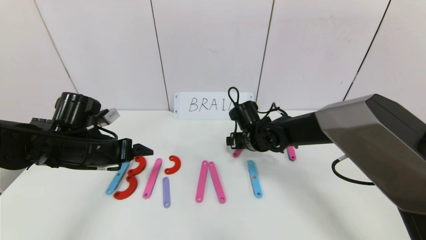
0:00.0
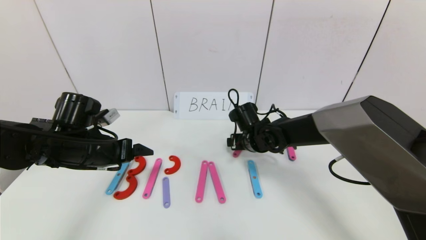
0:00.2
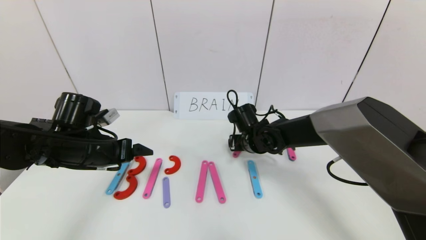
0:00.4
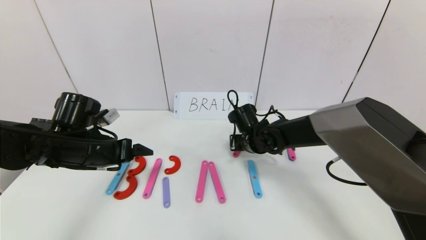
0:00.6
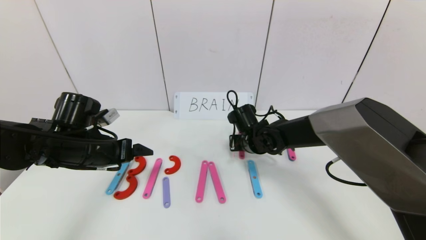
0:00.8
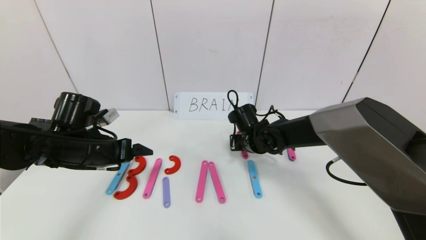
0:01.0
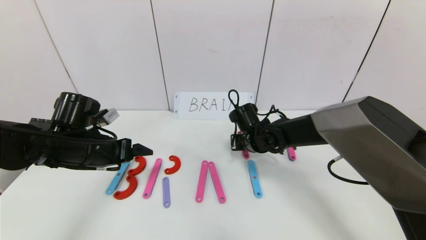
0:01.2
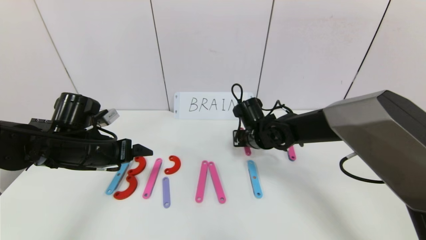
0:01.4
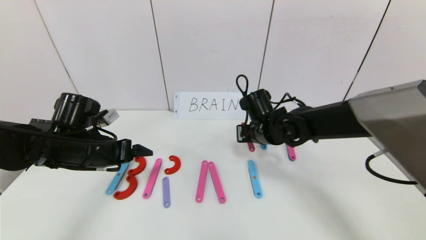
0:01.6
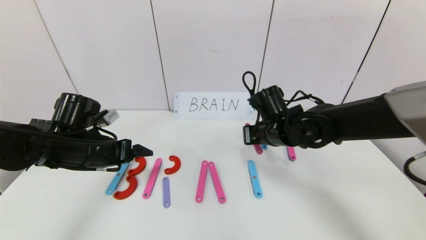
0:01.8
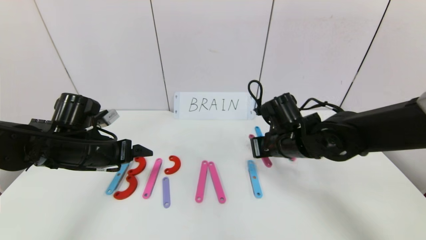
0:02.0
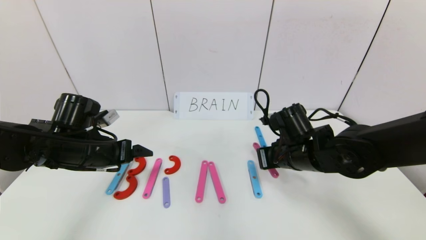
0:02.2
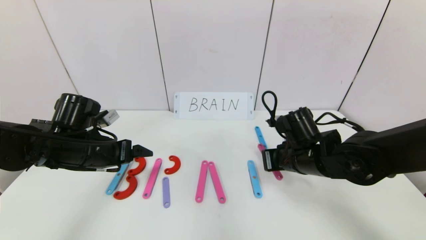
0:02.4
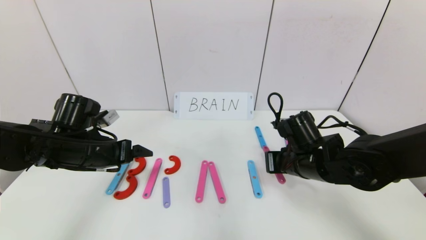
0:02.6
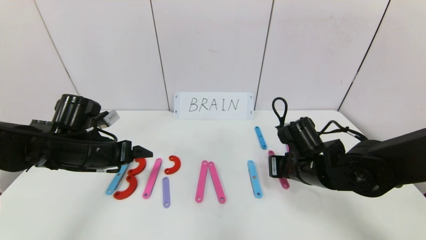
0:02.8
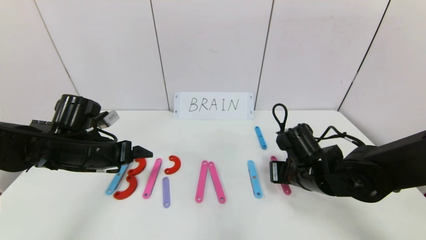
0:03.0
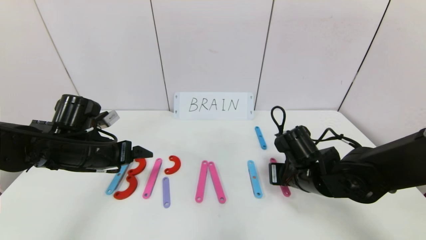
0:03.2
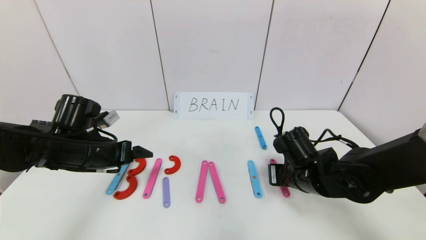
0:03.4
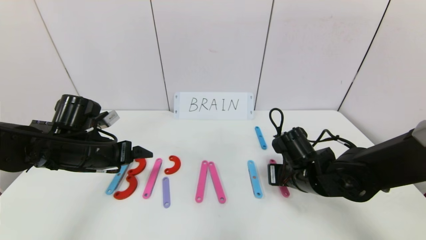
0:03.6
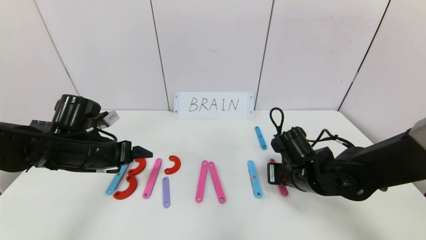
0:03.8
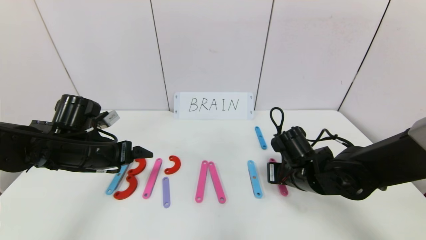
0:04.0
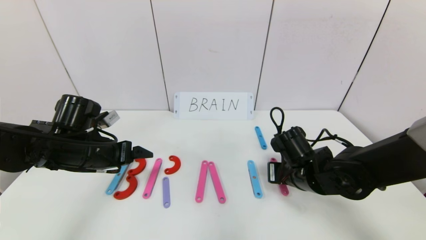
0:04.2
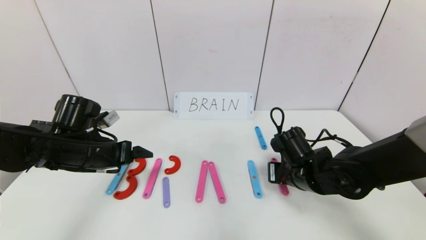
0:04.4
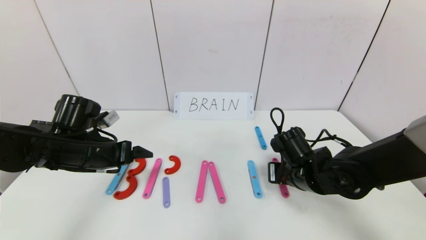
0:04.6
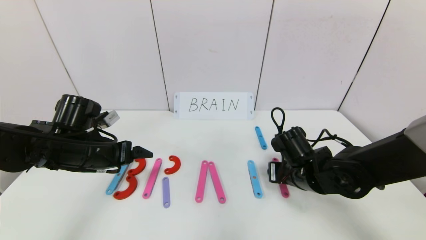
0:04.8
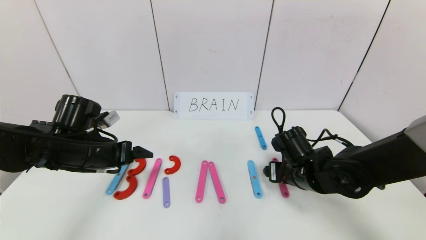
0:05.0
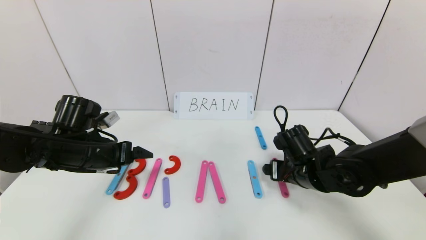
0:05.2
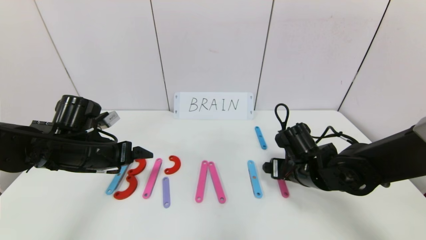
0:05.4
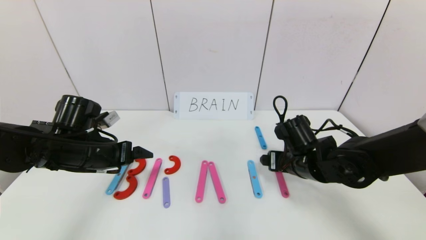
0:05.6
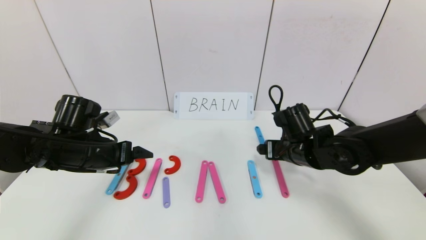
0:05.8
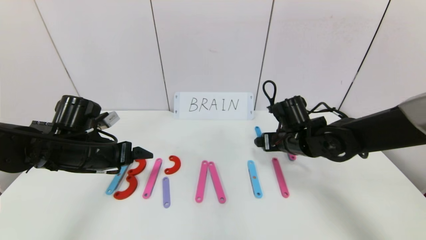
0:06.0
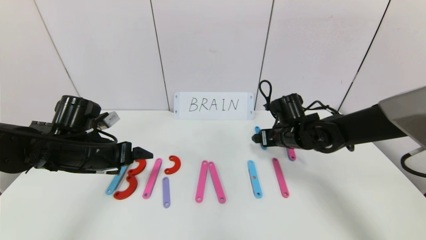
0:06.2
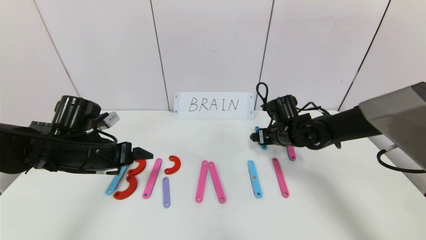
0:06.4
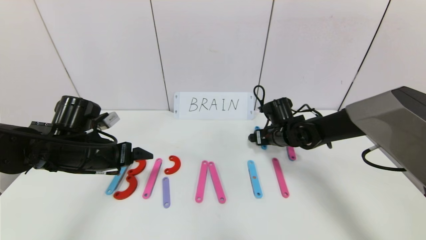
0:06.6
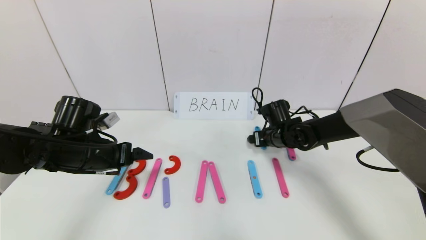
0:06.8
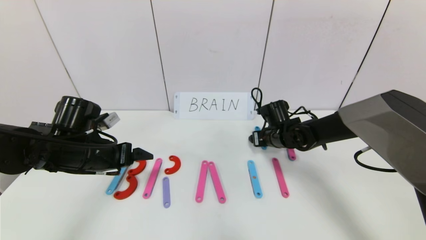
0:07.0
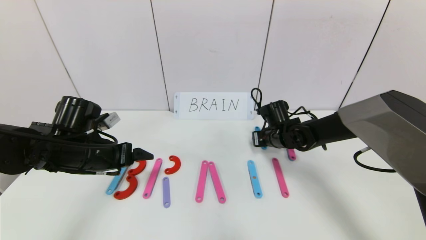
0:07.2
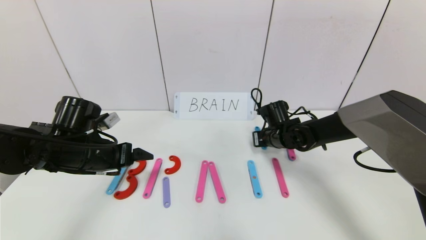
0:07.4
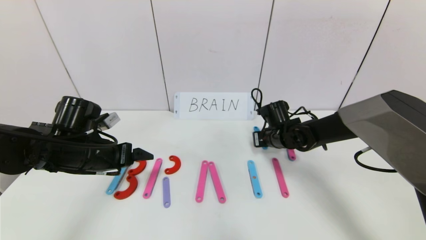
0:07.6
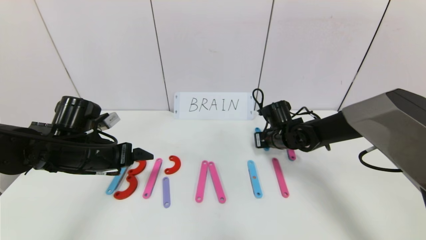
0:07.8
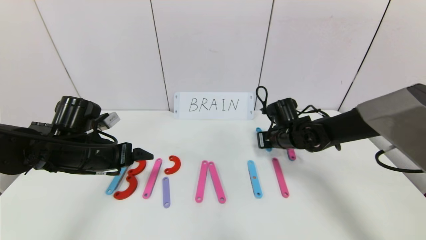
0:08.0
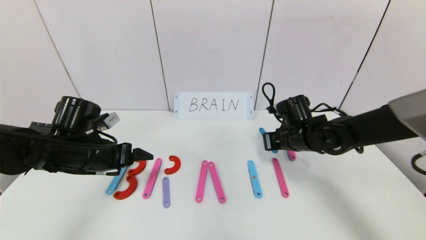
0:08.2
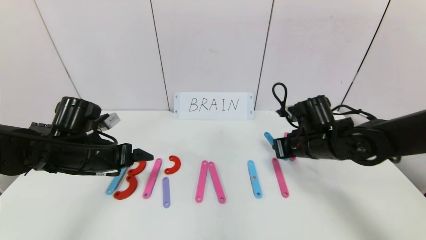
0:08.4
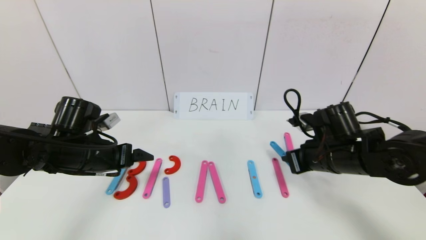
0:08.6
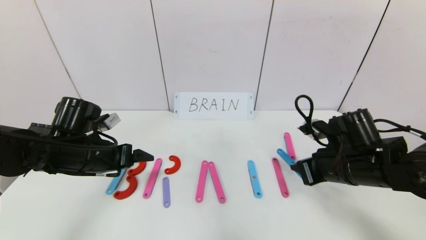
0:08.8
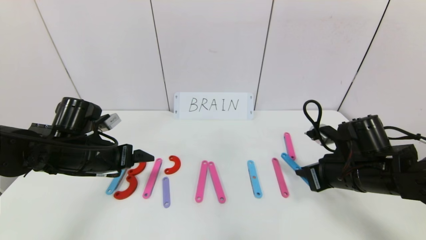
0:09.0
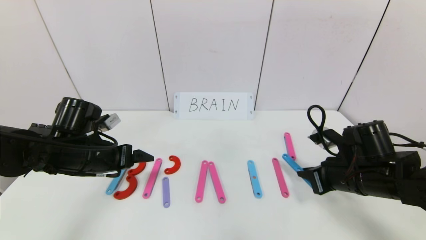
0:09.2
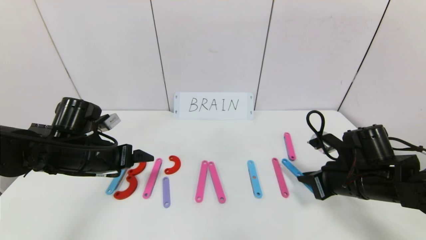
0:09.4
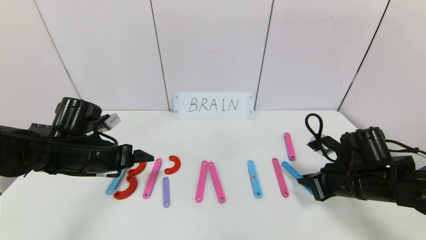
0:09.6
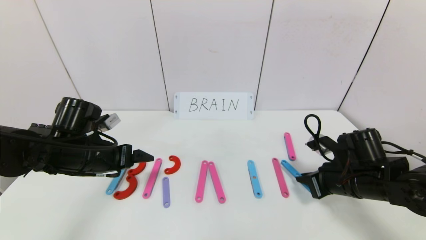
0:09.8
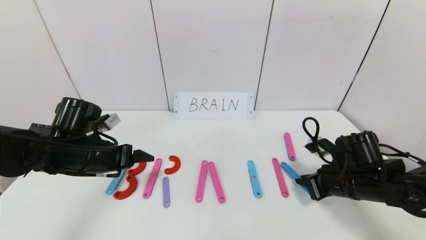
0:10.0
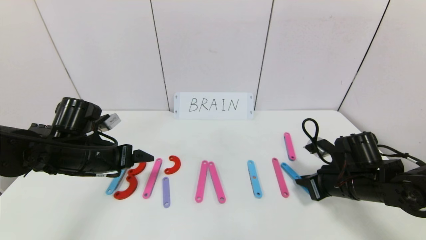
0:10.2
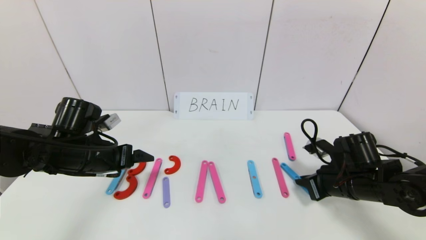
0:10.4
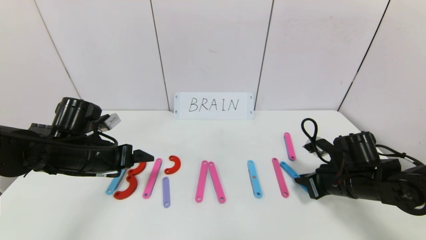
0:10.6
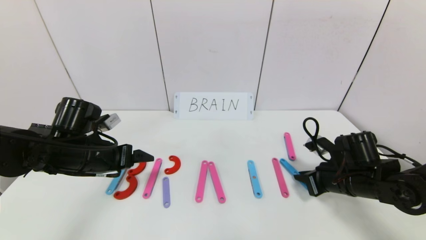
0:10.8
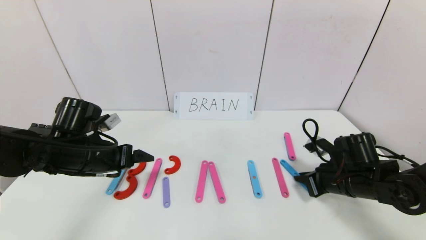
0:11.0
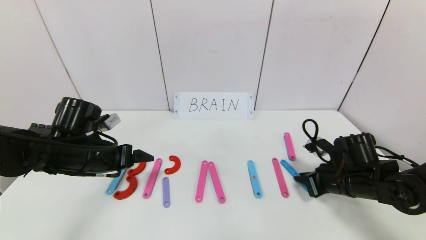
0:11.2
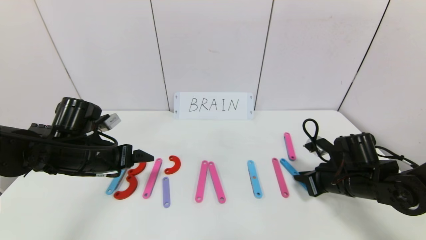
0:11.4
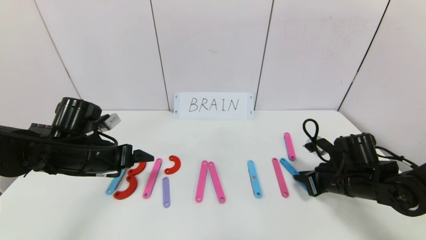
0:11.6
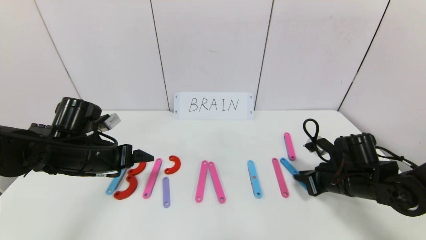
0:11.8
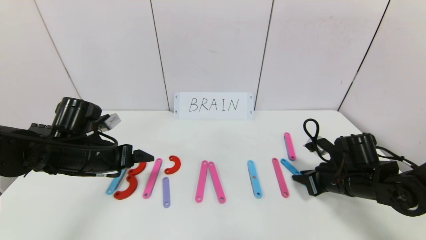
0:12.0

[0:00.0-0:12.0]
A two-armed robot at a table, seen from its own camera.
Task of the whole recording: rearrange the word baai as brain.
0:00.0 to 0:01.6: The right gripper closes up.
0:01.6 to 0:03.0: The right gripper travels backward and to the right by approximately 10 cm.
0:03.0 to 0:04.4: The grippers stay close to where they were, moving slightly.
0:04.4 to 0:06.0: The right gripper goes about 5 cm forward, and opens.
0:06.0 to 0:07.6: The right gripper goes roughly 10 cm forward and downward, and closes.
0:07.6 to 0:09.0: The right gripper moves backward and to the right, about 20 cm.
0:09.0 to 0:10.4: The right gripper shifts by roughly 5 cm.
0:10.4 to 0:12.0: The grippers move only a little.

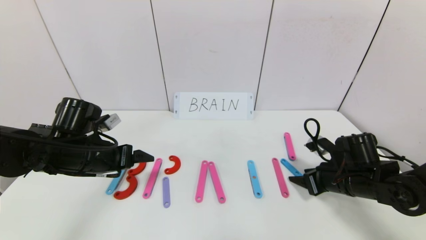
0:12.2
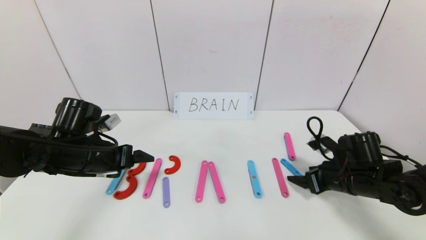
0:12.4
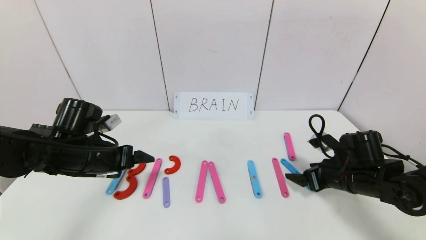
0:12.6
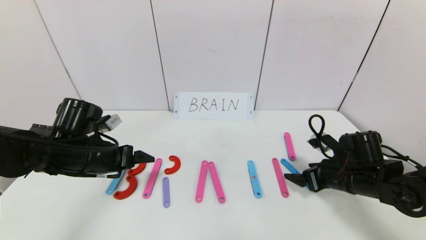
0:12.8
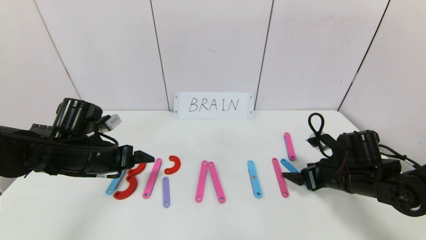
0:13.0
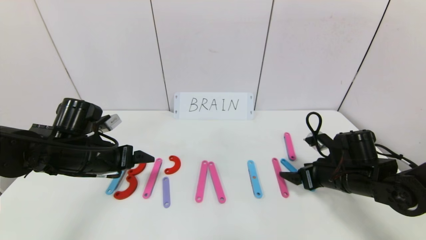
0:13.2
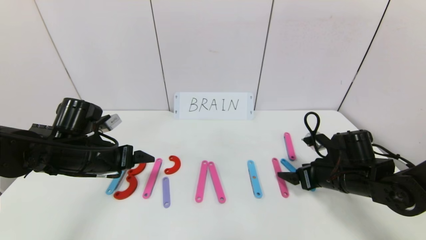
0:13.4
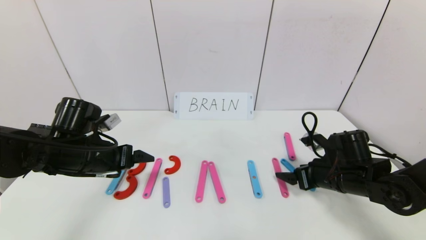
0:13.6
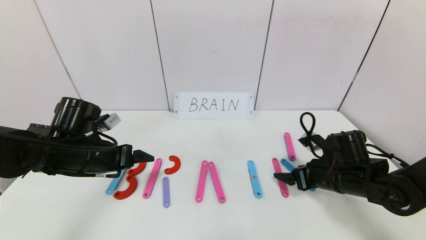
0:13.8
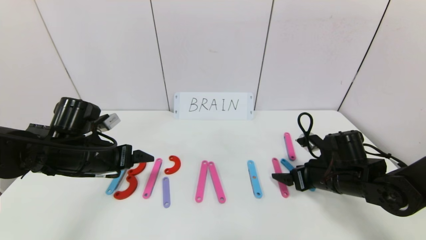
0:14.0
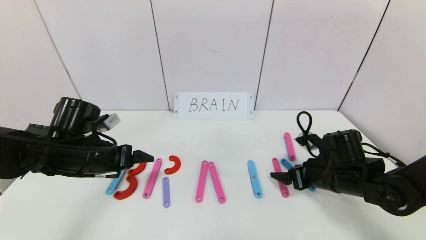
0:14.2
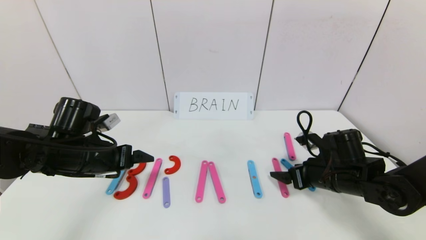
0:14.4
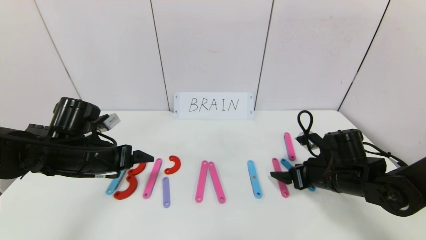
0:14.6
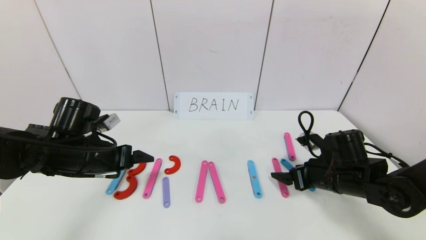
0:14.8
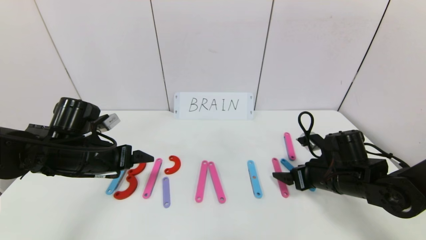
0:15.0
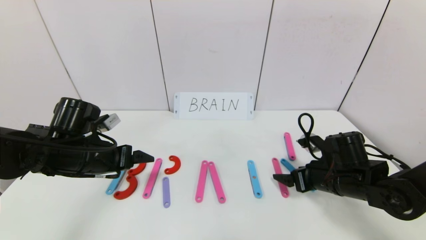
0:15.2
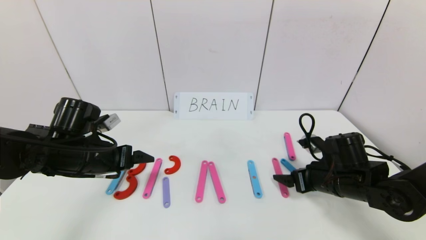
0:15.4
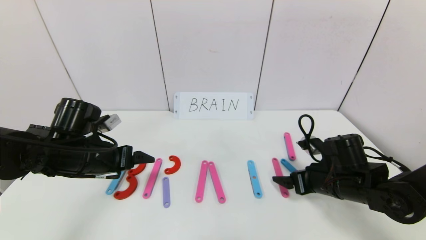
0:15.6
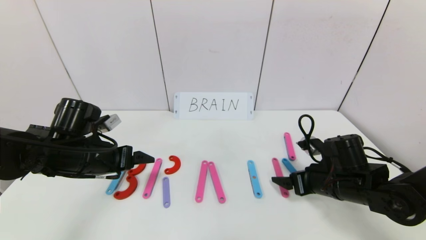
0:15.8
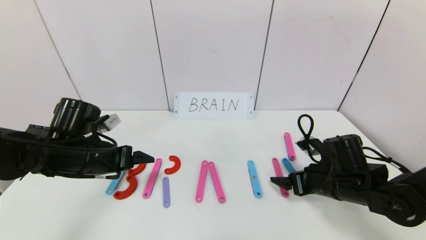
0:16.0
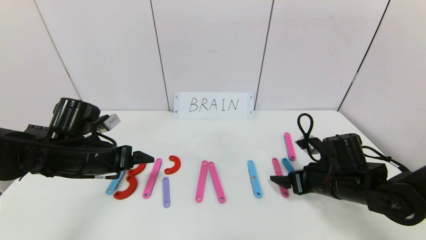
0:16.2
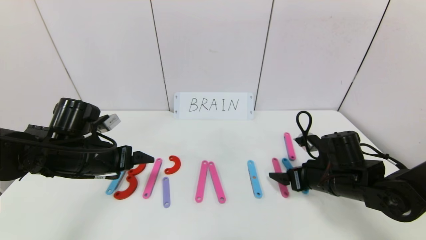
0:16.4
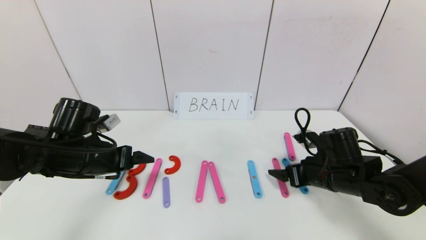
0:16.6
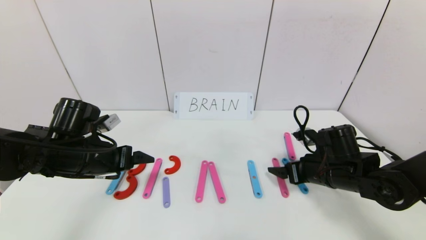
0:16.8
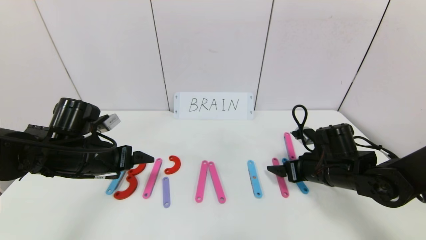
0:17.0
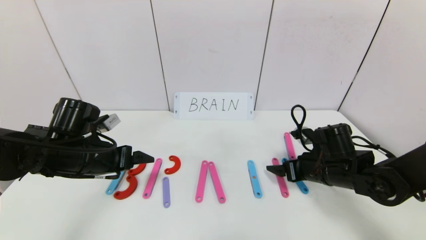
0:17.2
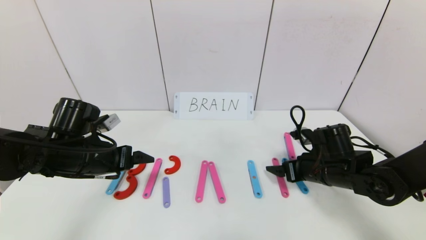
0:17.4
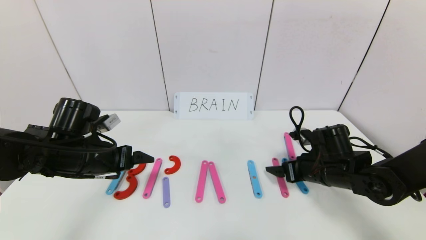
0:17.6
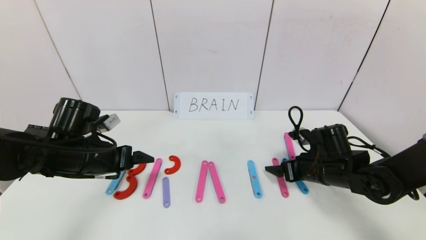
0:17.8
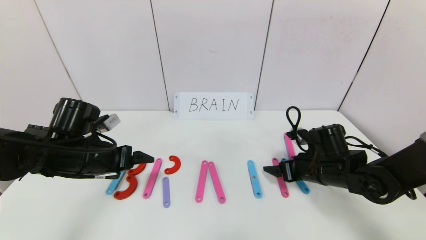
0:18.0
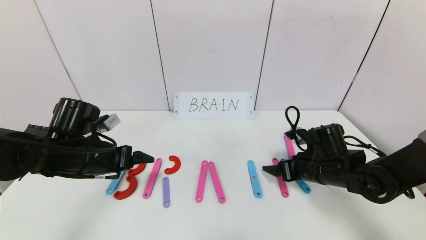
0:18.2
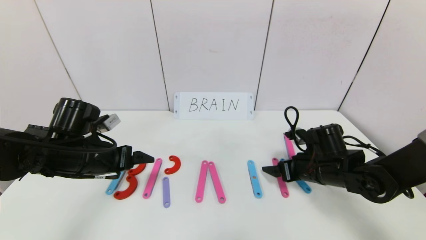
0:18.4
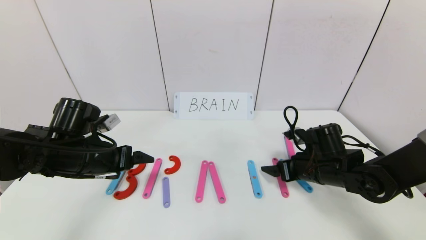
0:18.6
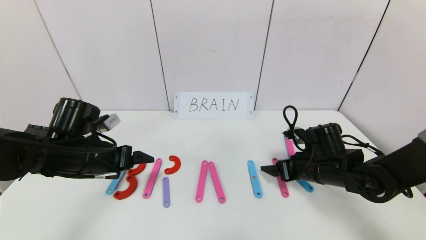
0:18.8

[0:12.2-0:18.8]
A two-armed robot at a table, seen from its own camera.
Task of the whole recording: rearrange the word baai as brain.
0:12.2 to 0:13.8: The grippers stay close to where they were, moving slightly.
0:13.8 to 0:15.4: Both grippers stay about where they are.
0:15.4 to 0:17.2: The grippers move only a little.
0:17.2 to 0:18.8: Both grippers stay put.
